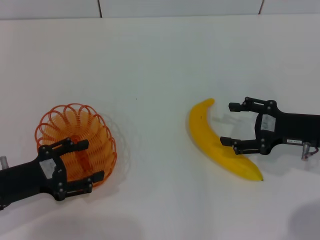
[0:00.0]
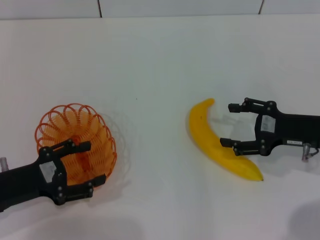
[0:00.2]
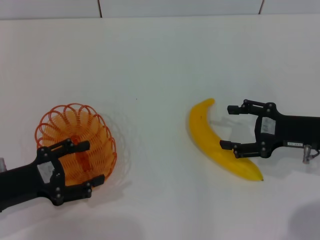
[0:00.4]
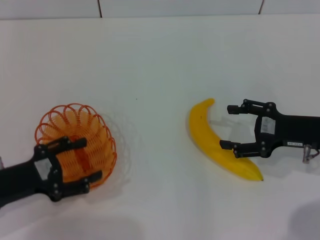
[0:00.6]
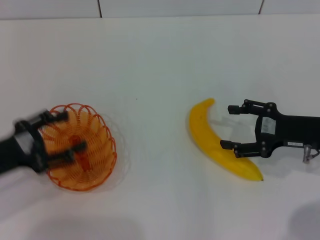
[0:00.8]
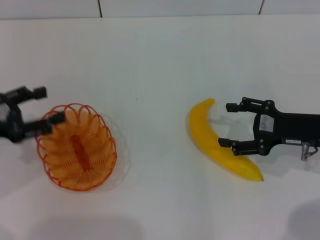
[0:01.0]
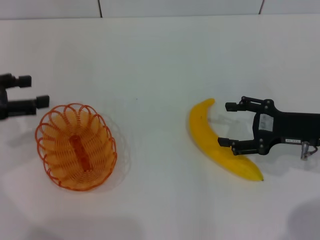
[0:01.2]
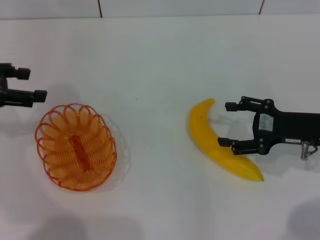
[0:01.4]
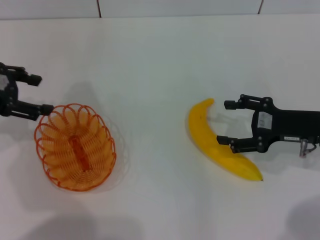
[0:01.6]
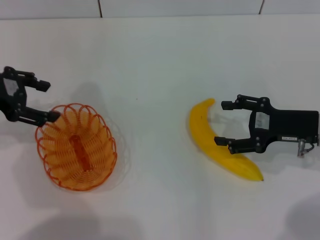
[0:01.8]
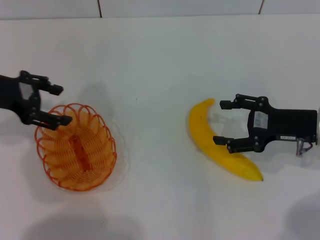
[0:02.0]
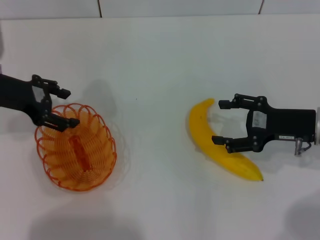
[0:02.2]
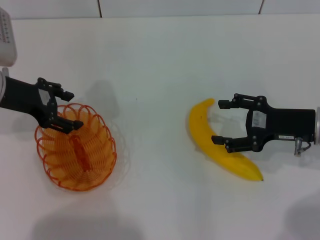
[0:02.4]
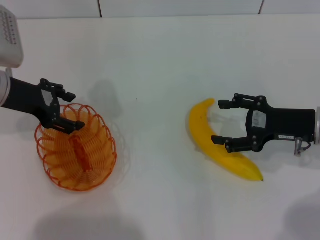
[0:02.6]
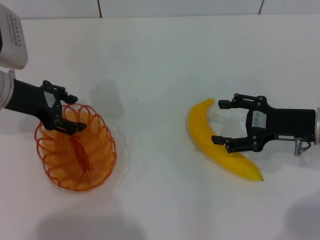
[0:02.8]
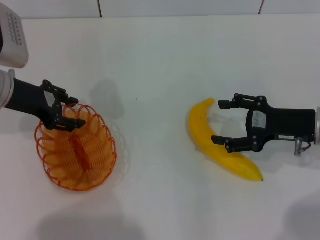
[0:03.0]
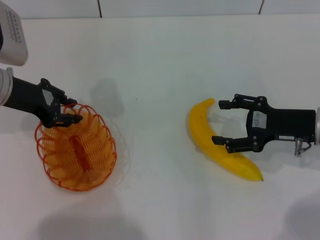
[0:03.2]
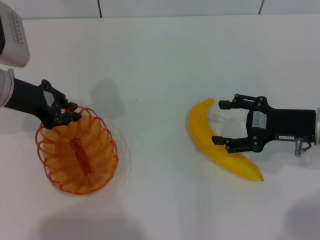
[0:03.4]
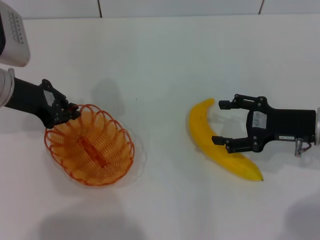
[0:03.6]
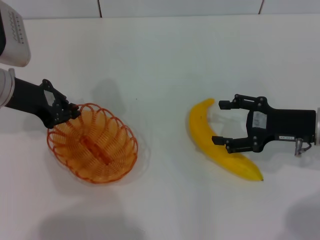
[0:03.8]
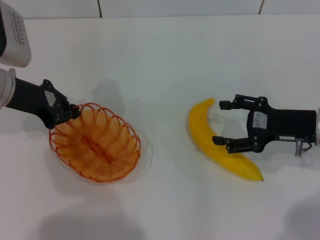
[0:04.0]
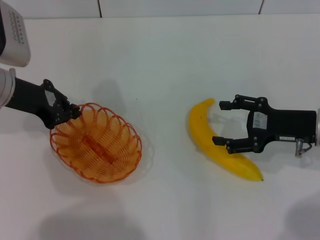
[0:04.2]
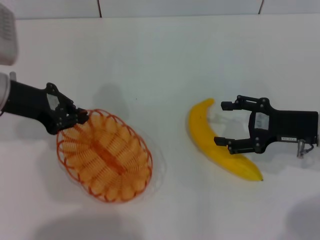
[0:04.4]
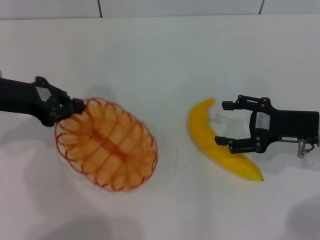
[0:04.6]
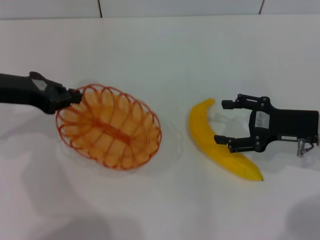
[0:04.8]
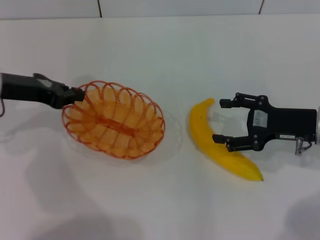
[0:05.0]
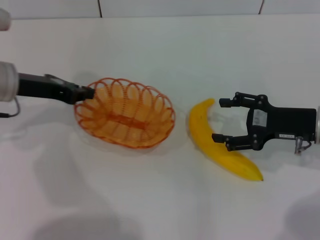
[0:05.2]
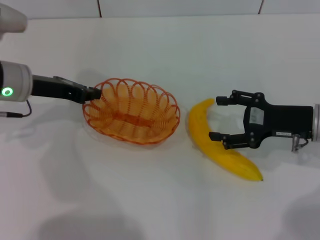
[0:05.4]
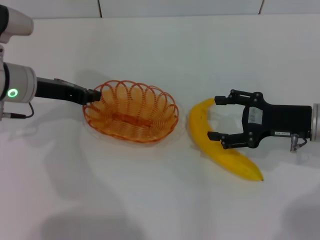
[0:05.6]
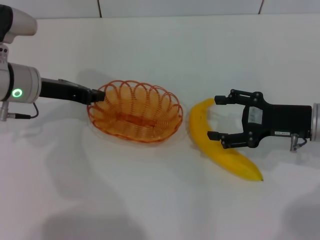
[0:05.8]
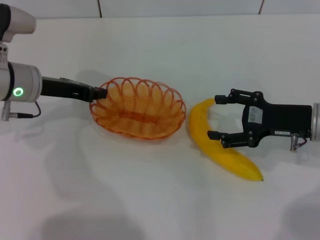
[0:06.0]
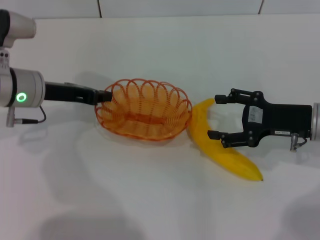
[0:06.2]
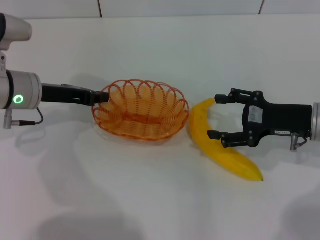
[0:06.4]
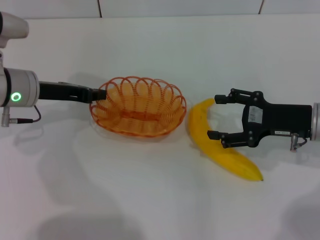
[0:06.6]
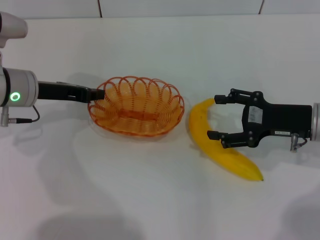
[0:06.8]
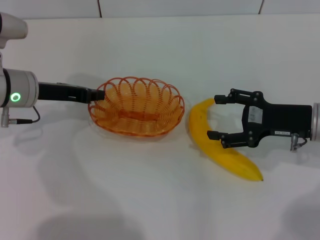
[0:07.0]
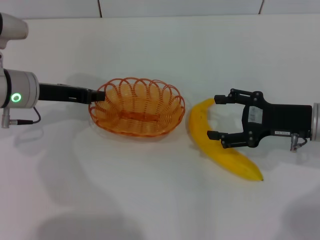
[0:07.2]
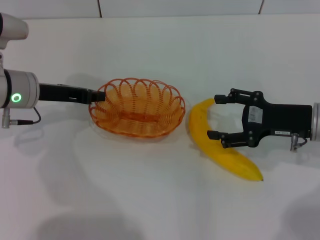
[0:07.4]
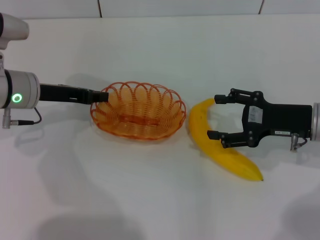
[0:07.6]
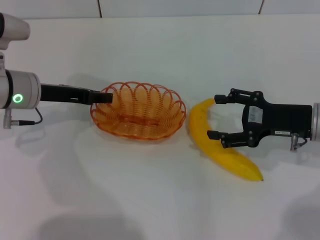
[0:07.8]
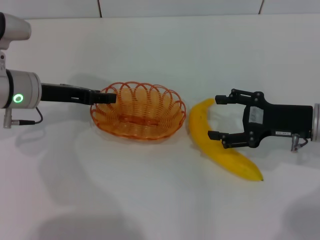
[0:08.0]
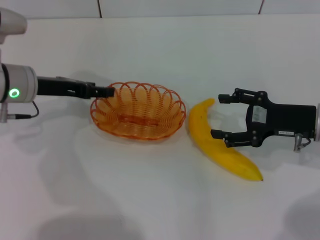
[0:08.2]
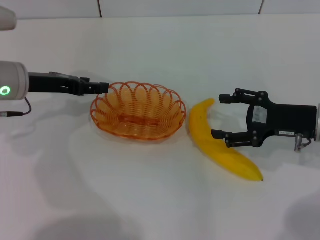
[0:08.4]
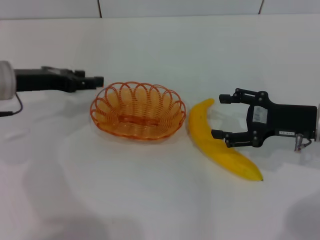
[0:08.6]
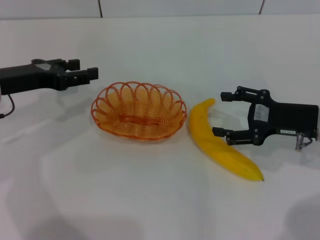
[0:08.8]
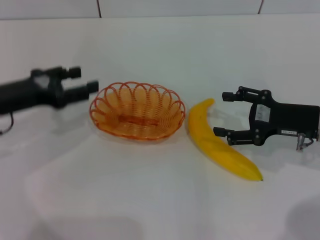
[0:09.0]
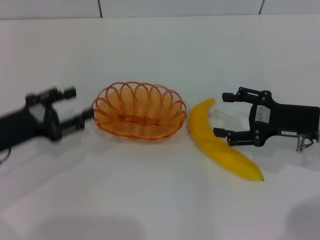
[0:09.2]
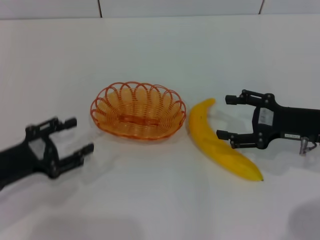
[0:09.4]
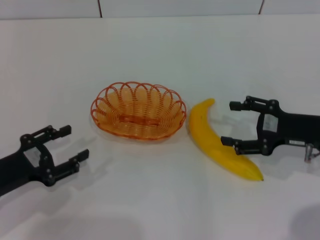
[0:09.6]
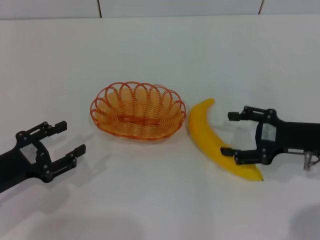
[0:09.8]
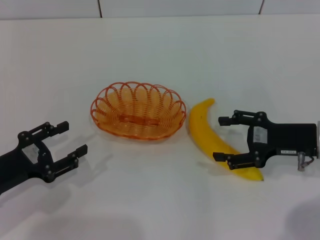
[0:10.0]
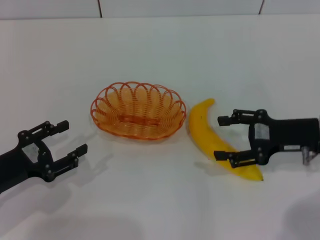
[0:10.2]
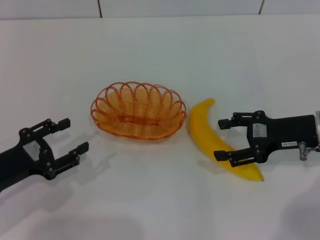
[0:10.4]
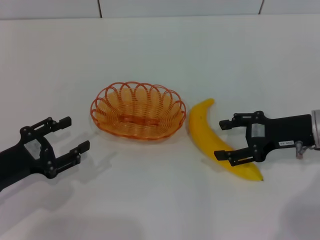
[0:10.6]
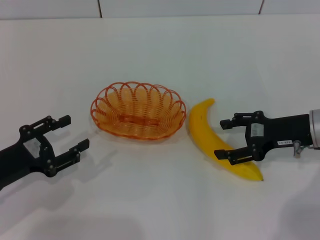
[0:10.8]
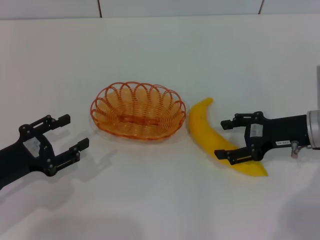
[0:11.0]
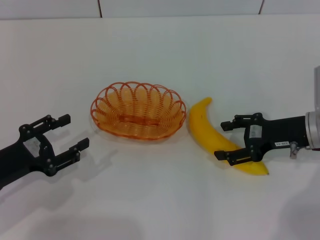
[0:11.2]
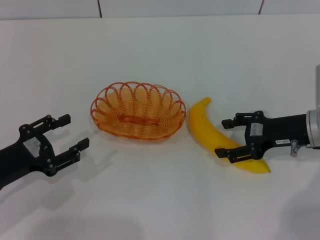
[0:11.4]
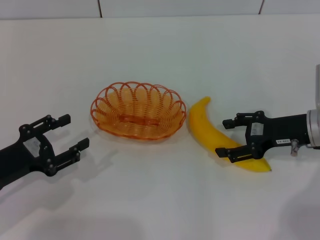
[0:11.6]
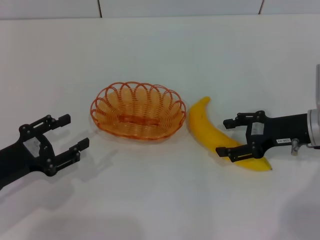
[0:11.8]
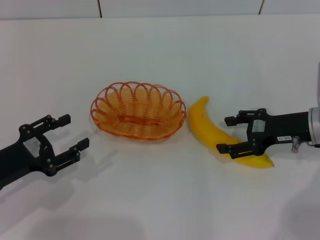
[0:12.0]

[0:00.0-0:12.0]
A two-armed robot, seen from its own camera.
Step, 0:00.0 to 0:04.4: Pick up the basket with the left gripper.
Step, 0:04.6 to 0:08.2: Place the basket in the center of view with the left gripper.
0:00.0 to 0:01.6: The left gripper shifts some 20 cm upward and forward.
0:01.6 to 0:03.0: The left gripper is displaced to the right by approximately 5 cm.
0:03.0 to 0:04.4: The left gripper closes up.
0:06.0 to 0:07.6: The grippers make only small movements.
0:07.6 to 0:09.0: The left gripper moves backward, about 5 cm, and opens.
0:09.0 to 0:10.4: The left gripper goes roughly 10 cm backward and downward.
0:10.4 to 0:12.0: There are only small adjustments of the grippers.

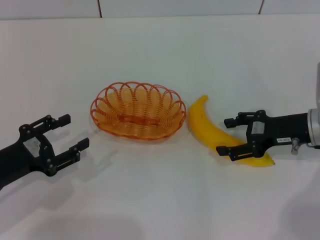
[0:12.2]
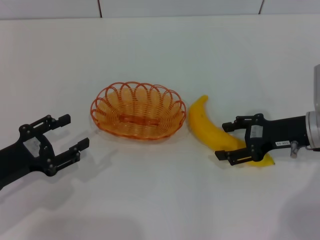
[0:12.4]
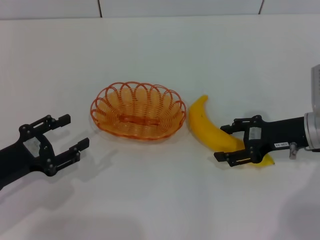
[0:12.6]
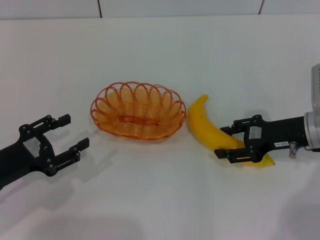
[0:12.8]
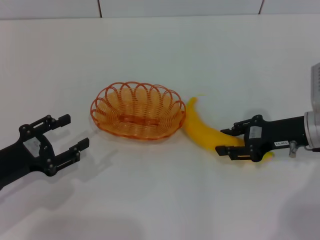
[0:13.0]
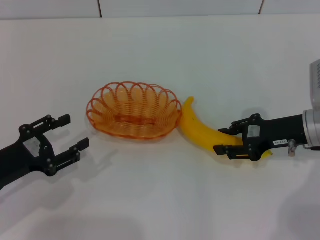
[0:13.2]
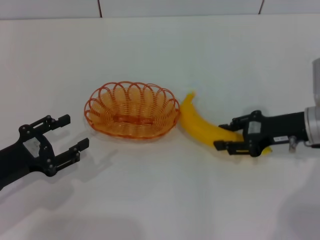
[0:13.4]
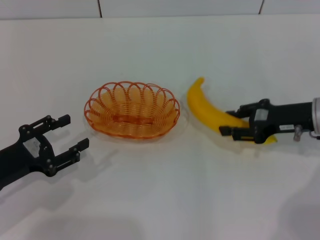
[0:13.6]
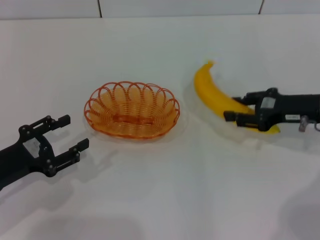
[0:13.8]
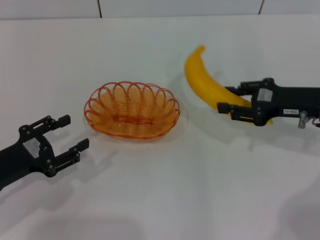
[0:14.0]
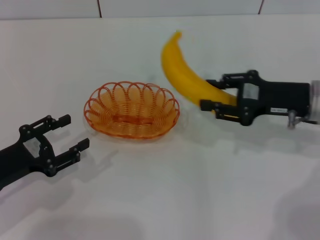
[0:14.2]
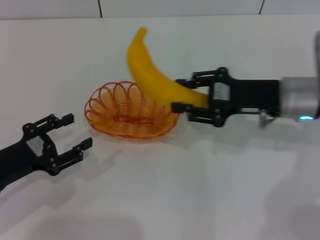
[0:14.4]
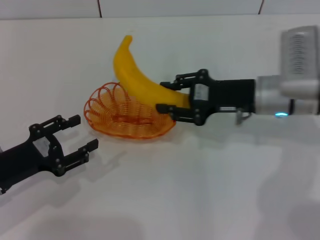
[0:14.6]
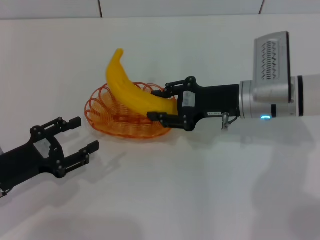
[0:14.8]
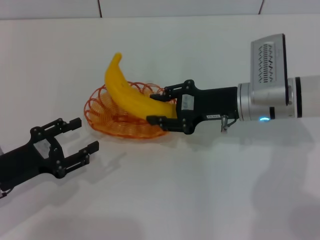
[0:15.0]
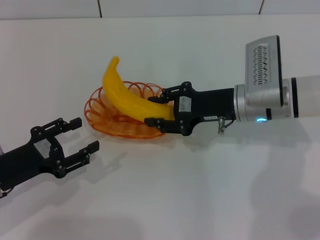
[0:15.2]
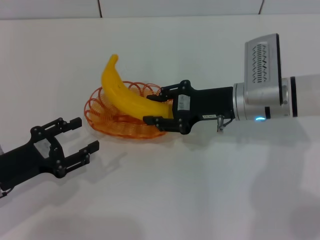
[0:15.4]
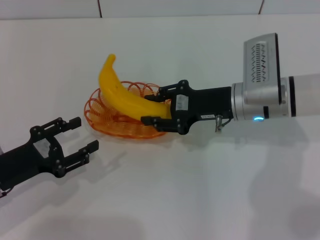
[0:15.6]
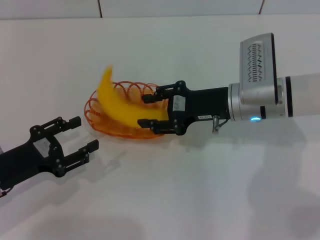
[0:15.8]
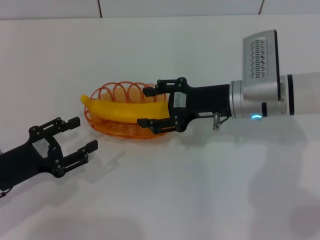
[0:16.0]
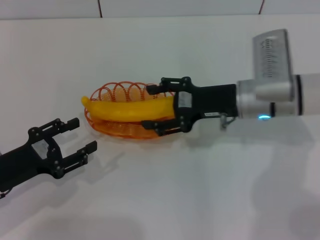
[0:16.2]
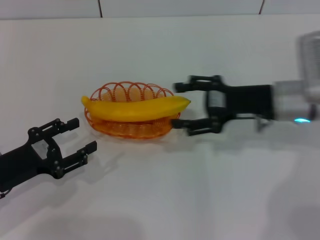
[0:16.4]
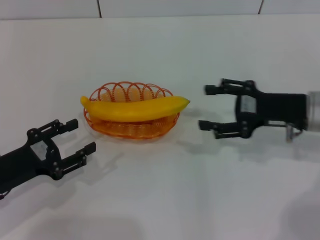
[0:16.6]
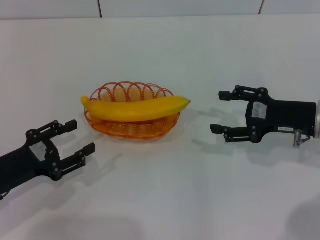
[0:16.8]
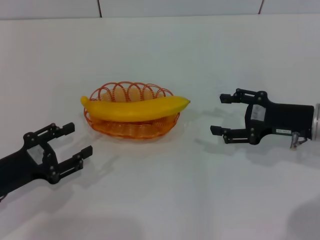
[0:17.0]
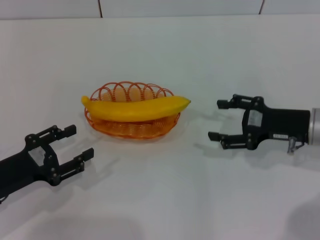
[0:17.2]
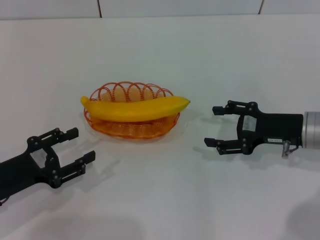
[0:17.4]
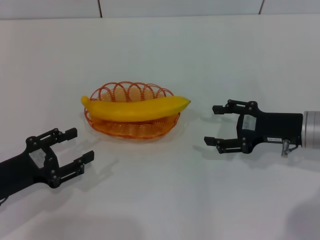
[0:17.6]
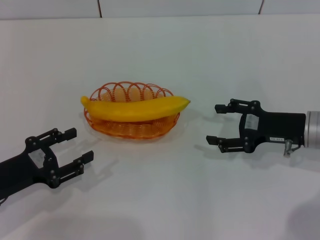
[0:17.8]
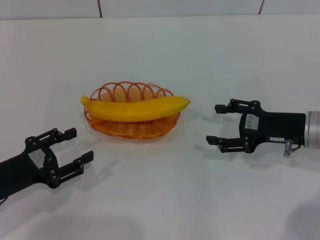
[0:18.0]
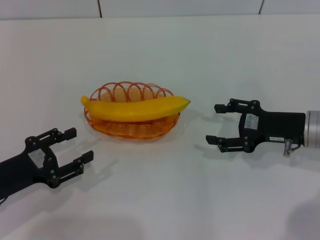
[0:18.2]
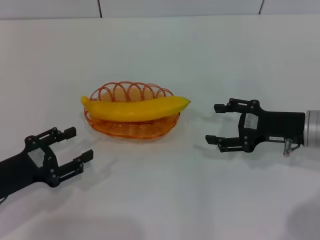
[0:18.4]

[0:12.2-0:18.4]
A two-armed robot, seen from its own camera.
Step, 0:13.6 to 0:16.2: Place the banana into the basket with the right gripper.
0:12.2 to 0:13.8: The right gripper closes.
0:13.8 to 0:15.4: The right gripper travels to the left by roughly 10 cm.
0:15.4 to 0:16.8: The right gripper moves to the right and backward, about 10 cm, and opens.
0:16.8 to 0:18.4: The grippers move only a little.

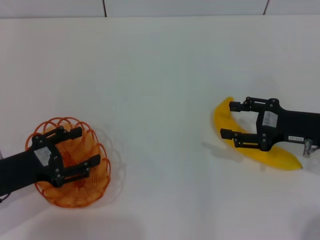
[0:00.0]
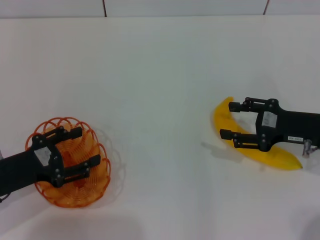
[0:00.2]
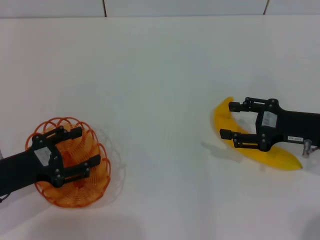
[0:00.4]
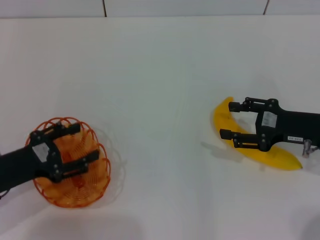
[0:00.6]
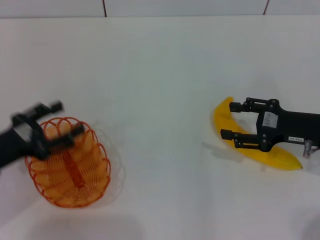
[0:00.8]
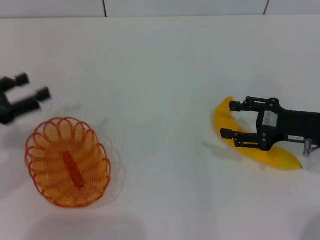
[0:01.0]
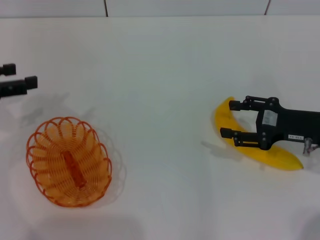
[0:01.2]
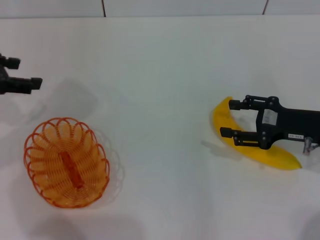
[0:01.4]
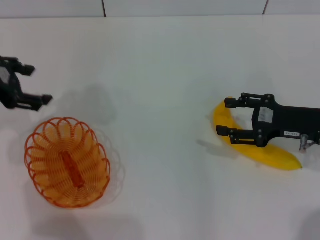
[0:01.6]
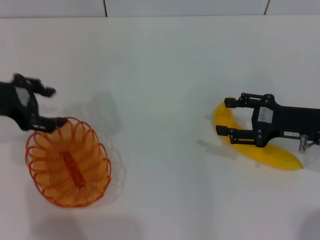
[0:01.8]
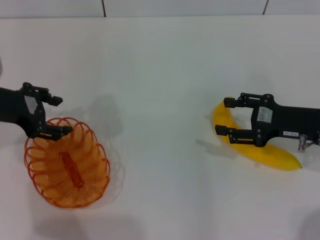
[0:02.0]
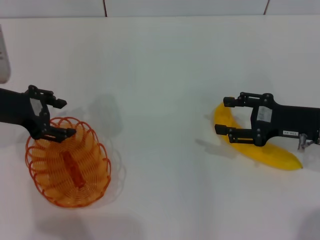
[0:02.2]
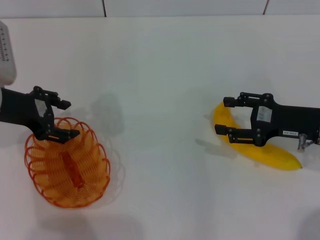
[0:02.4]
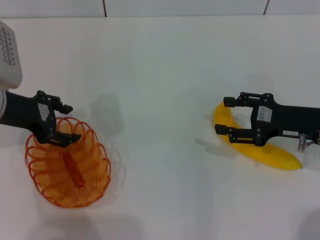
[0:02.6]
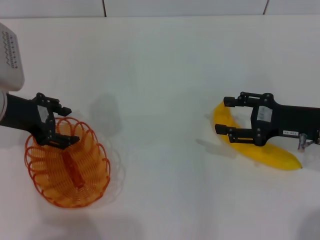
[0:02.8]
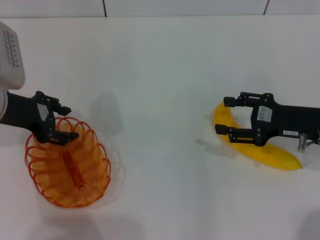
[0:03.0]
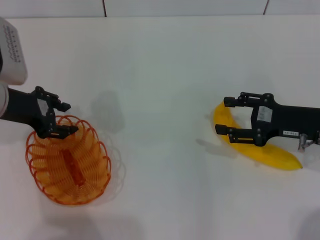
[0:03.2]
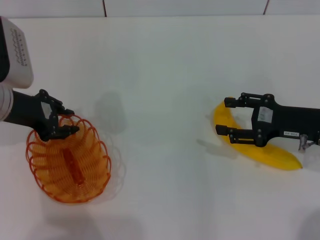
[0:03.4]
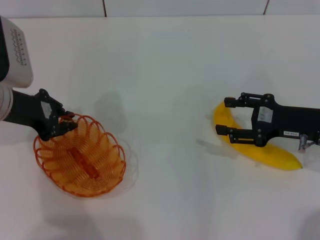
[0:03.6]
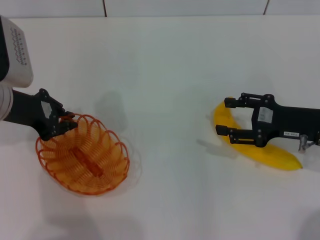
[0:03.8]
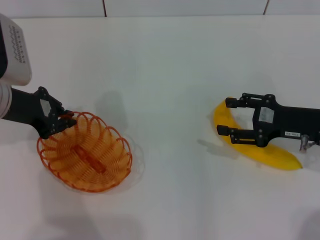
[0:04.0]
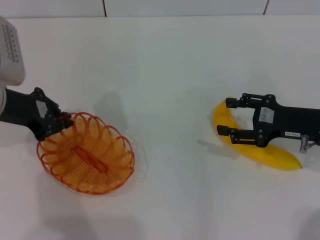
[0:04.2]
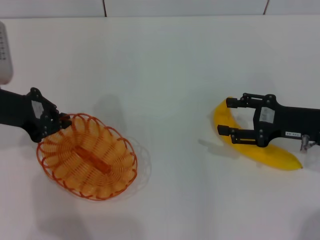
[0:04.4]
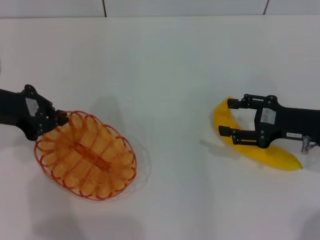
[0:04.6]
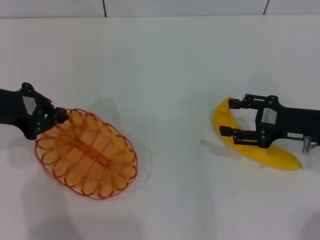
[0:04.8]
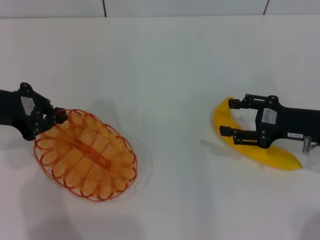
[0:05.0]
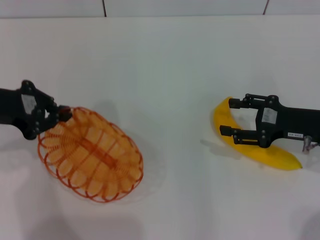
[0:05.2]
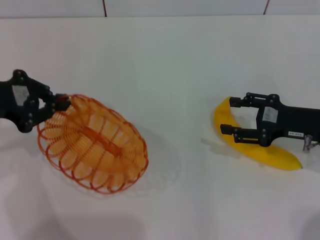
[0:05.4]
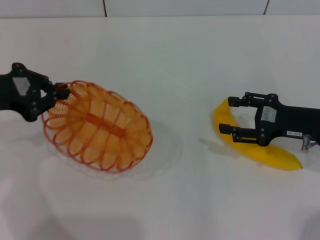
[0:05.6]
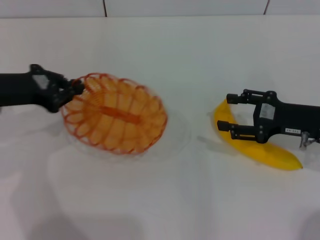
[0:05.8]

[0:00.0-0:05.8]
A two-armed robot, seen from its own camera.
Step, 0:00.0 to 0:04.4: Pick up the basket with the left gripper.
0:00.0 to 0:01.4: The left gripper travels upward and forward by about 20 cm.
0:01.4 to 0:02.8: The left gripper moves downward and to the right, some 10 cm.
0:02.8 to 0:04.4: The left gripper closes.
